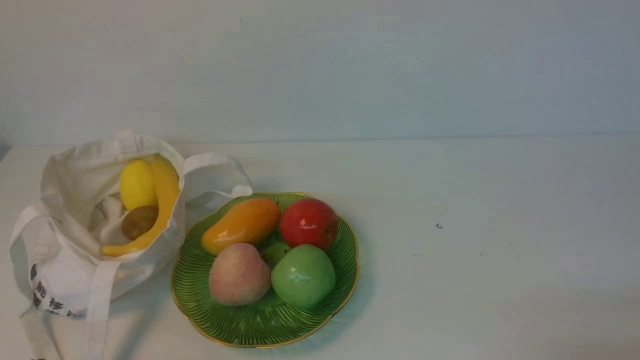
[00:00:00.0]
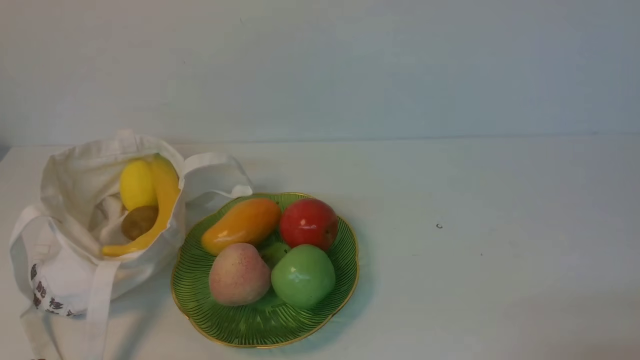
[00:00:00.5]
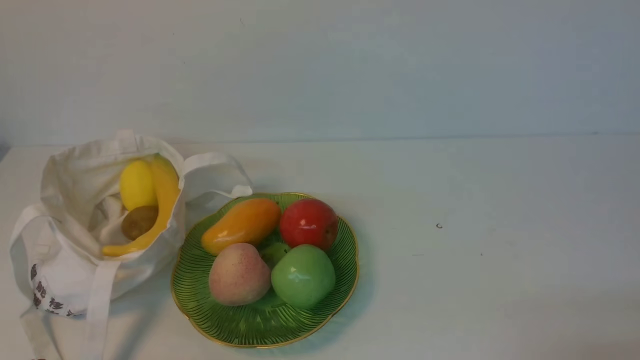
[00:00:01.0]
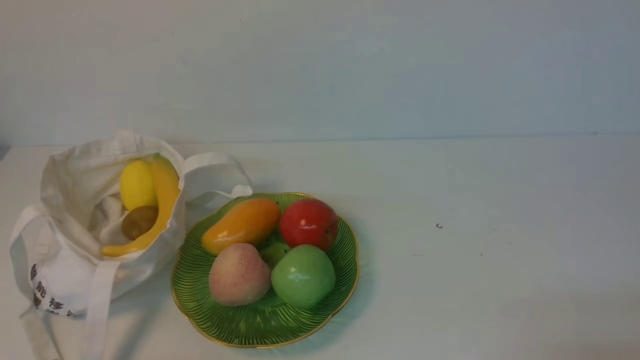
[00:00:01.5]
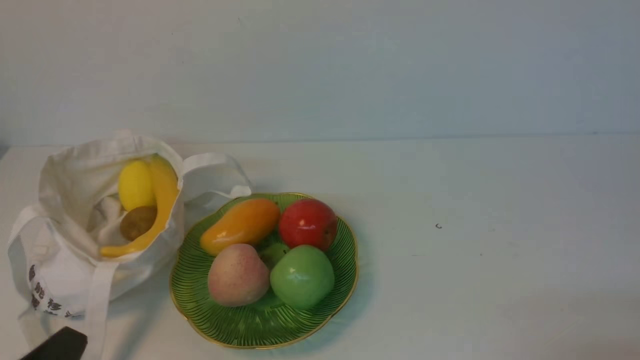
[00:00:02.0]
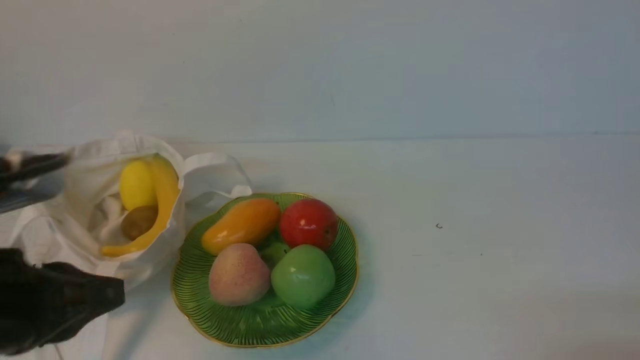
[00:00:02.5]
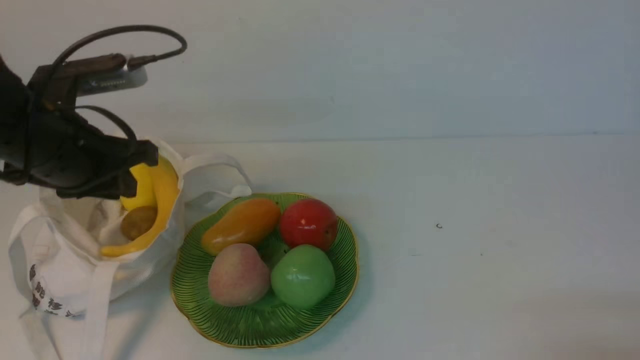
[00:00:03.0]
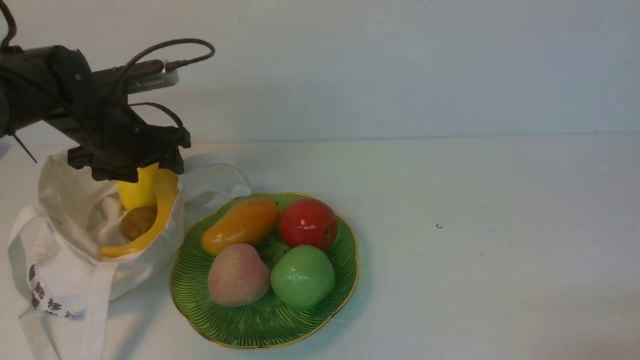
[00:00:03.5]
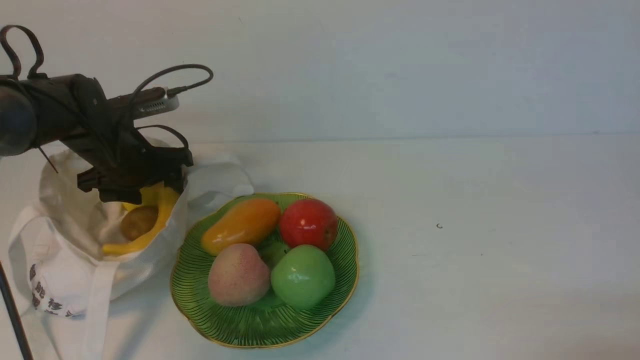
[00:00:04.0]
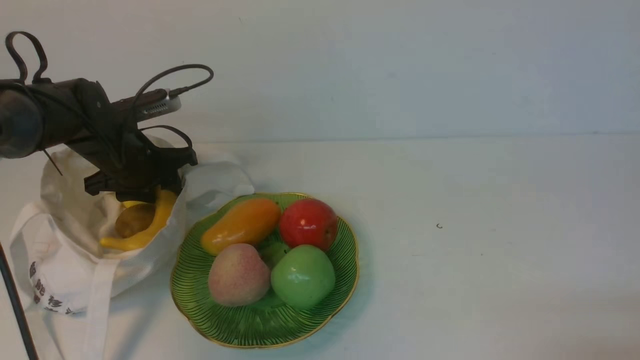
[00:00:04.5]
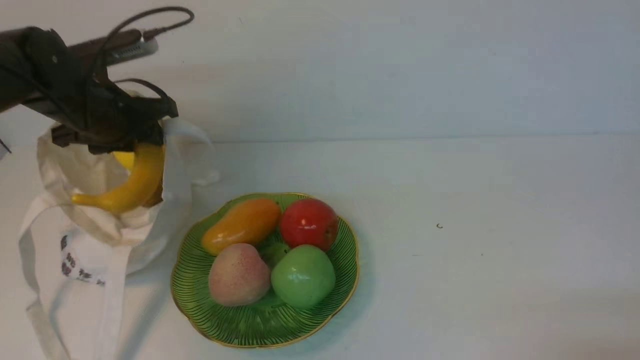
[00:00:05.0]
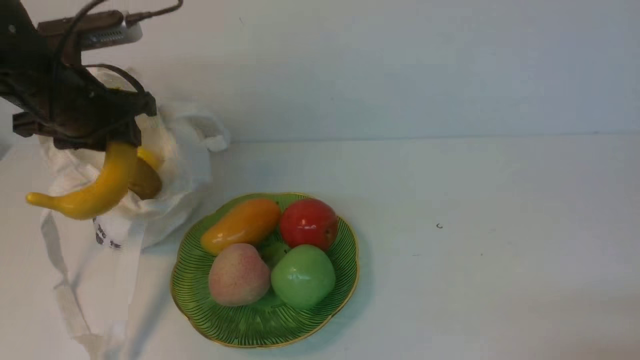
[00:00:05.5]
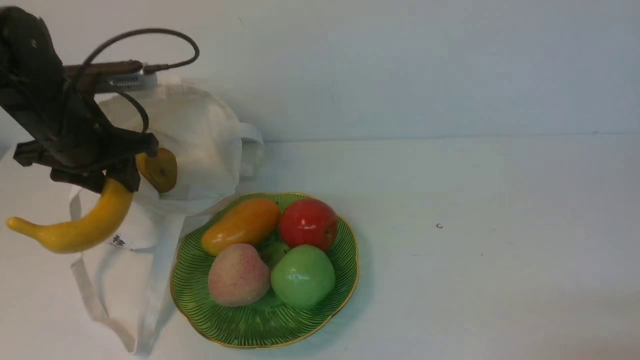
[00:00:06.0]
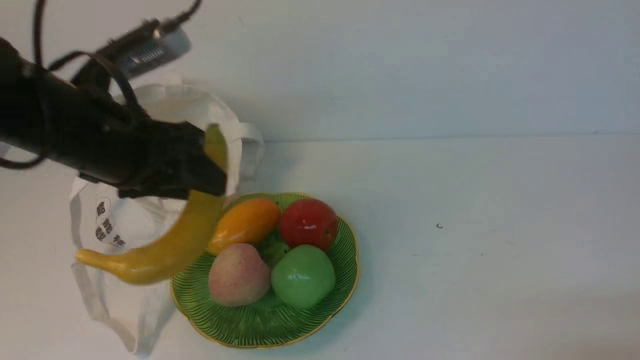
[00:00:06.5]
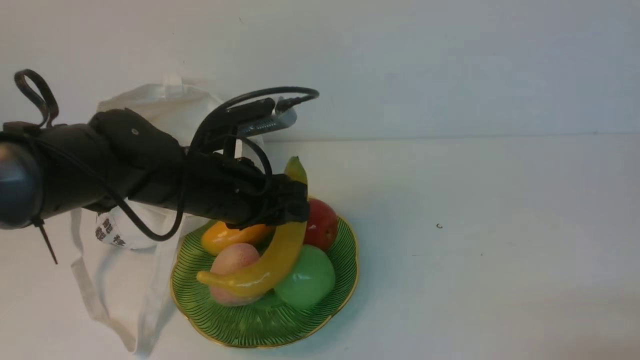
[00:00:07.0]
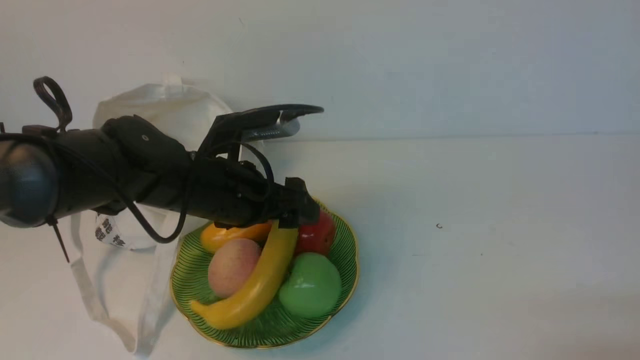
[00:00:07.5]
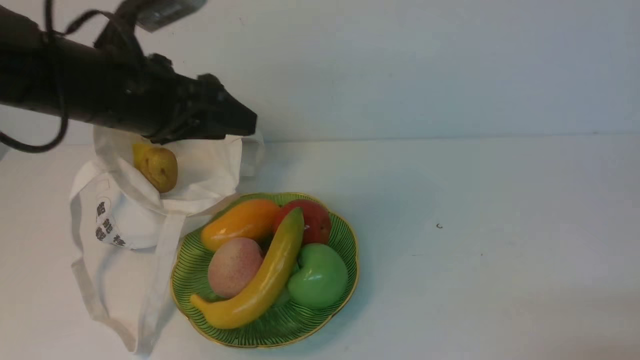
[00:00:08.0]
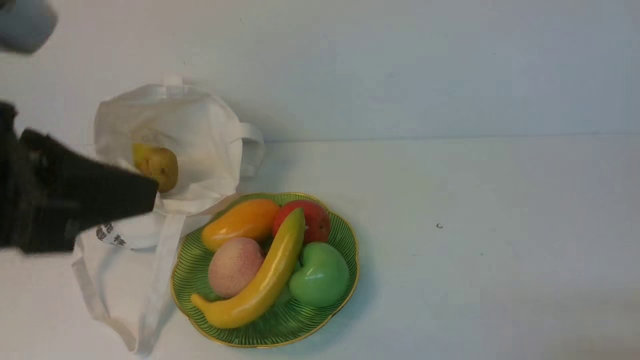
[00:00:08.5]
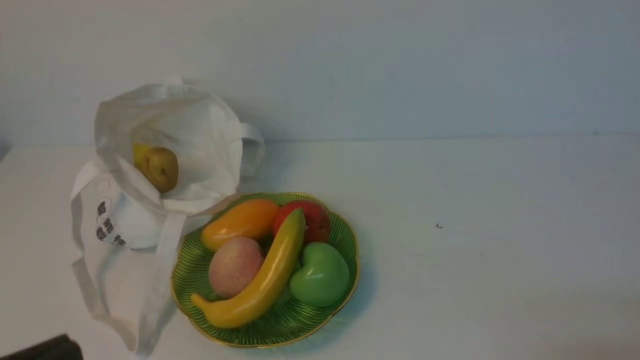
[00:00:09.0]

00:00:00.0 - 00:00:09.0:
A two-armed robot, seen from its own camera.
Step, 00:00:00.0 - 00:00:04.5: use the left arm to grab a banana from the bag.
Step, 00:00:05.0 - 00:00:07.0: use the left arm to put the banana into the empty plate on the right.
00:00:00.0 - 00:00:02.0: The left gripper changes place by roughly 5 cm.
00:00:02.0 - 00:00:04.5: The left gripper is displaced forward by some 35 cm, and opens its fingers.
00:00:04.5 - 00:00:07.0: The left gripper is displaced to the right and backward by approximately 15 cm.
00:00:07.0 - 00:00:09.0: The left gripper travels backward by roughly 30 cm, and closes its fingers.

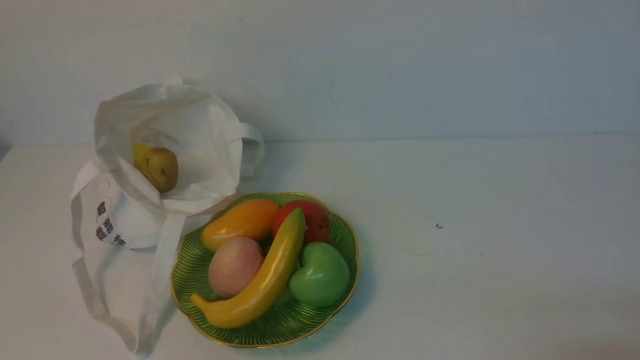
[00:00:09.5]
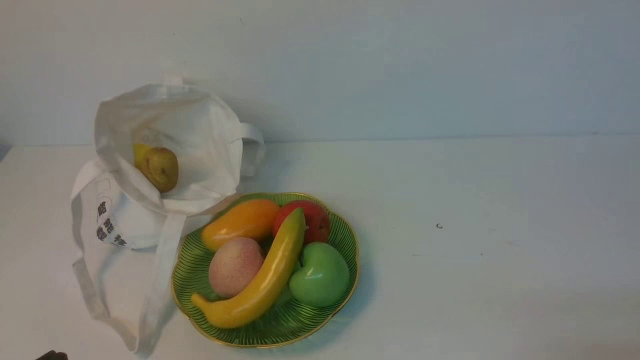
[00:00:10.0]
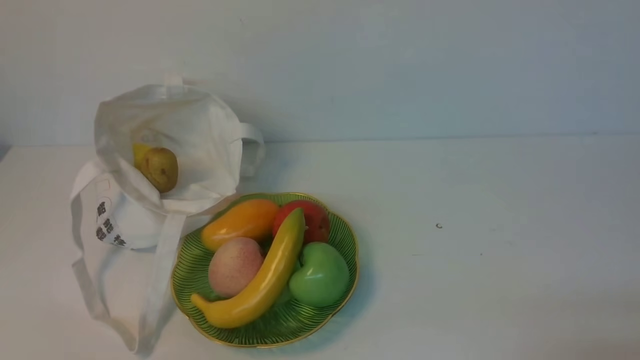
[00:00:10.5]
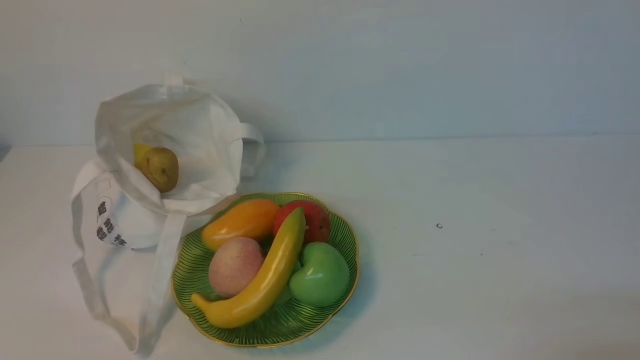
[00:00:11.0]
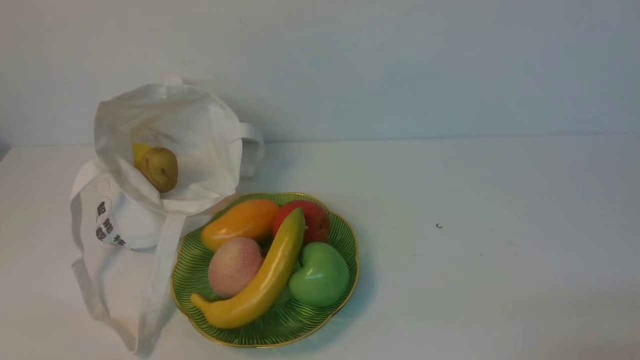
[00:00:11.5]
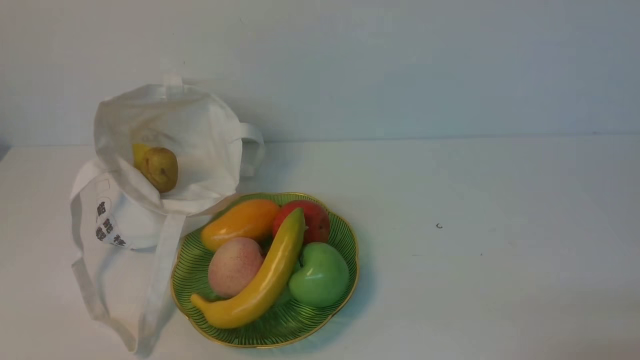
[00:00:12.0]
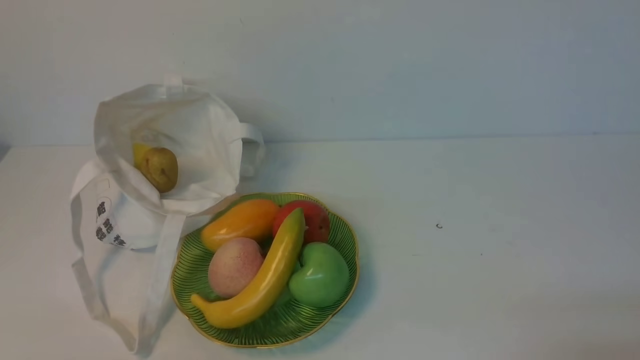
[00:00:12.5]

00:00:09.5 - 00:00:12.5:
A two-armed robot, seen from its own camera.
00:00:11.0 - 00:00:12.5: Both grippers stay about where they are.
